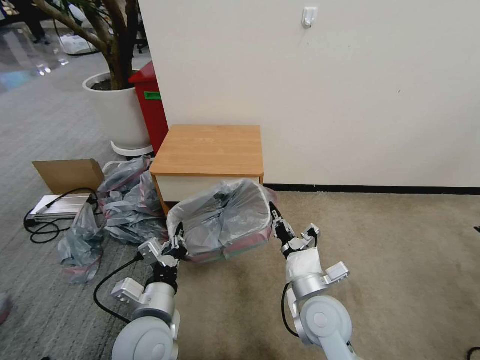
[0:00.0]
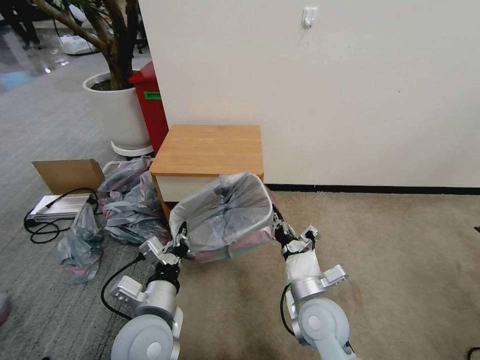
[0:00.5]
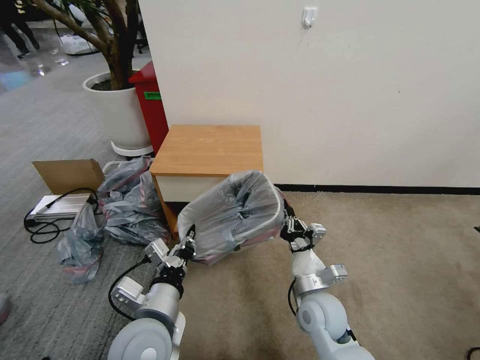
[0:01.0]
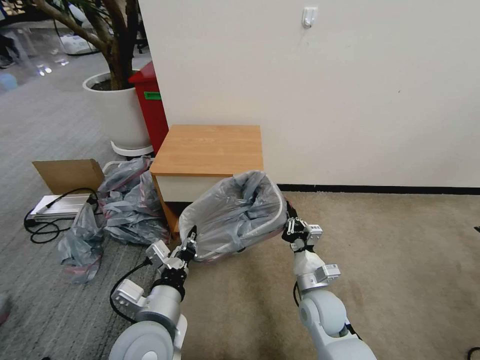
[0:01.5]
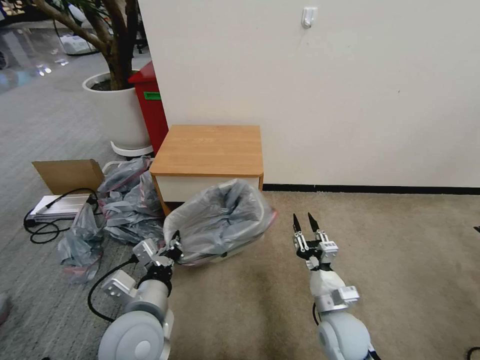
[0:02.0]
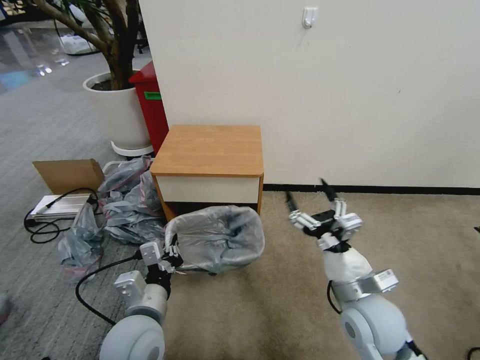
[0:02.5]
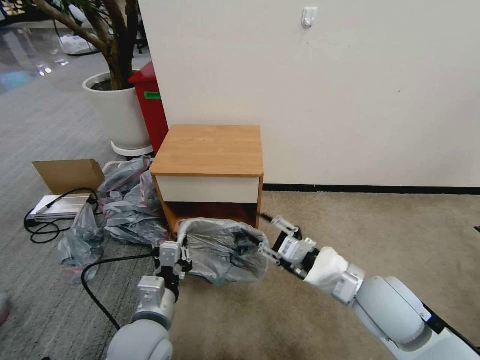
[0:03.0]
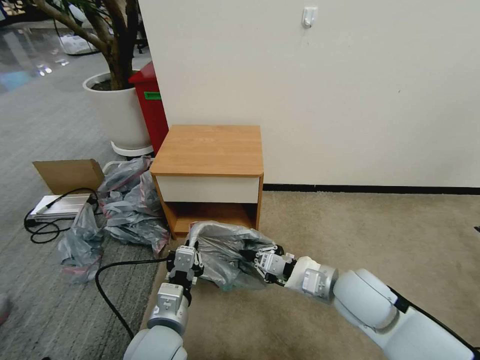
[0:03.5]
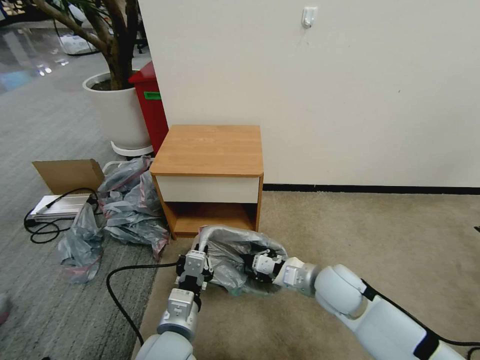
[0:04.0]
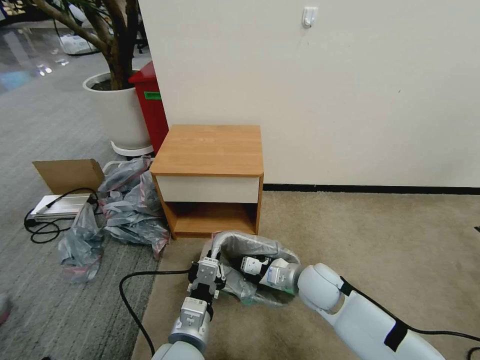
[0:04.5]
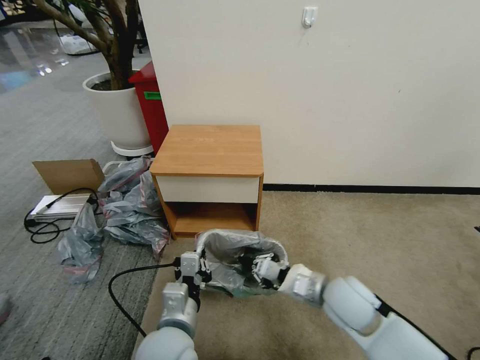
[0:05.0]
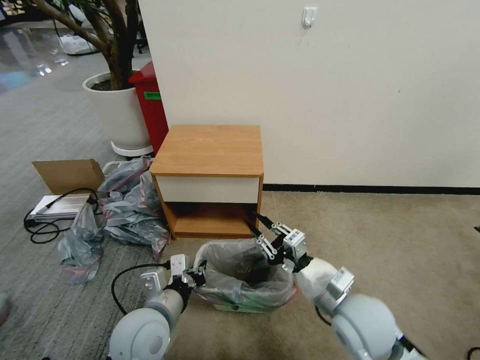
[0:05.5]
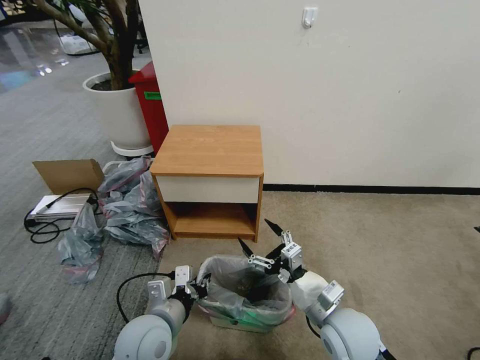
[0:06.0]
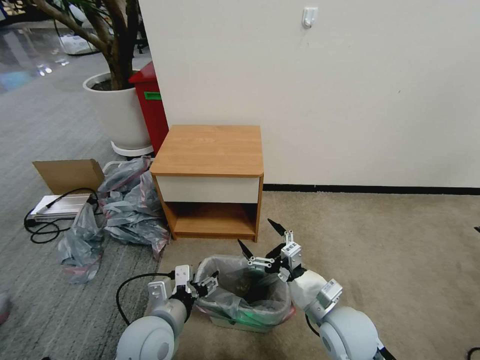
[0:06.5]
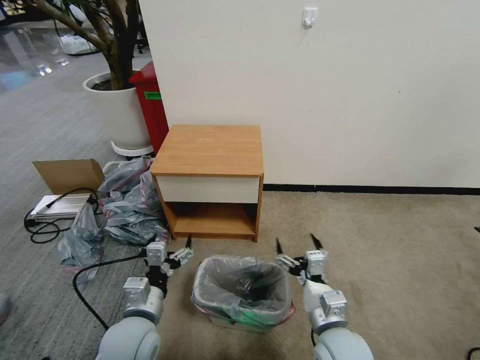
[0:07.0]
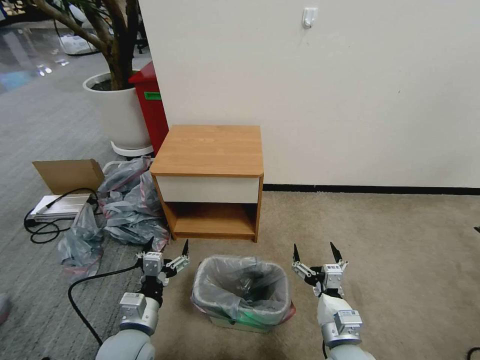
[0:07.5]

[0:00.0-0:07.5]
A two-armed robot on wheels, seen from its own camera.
Task of the whole recording: Pick up the garbage bag from the table and place it over the trash can.
0:00.0 to 0:02.0: The right gripper goes approximately 10 cm downward and to the right, and opens up.
0:02.0 to 0:04.0: The left gripper is displaced to the right by roughly 5 cm. The right gripper shifts some 10 cm forward and upward, and closes its fingers.
0:04.0 to 0:05.5: The right gripper moves backward, approximately 10 cm. Meanwhile the left gripper shifts about 5 cm to the left.
0:05.5 to 0:07.5: The right gripper is displaced downward and backward by some 10 cm, and opens up. The left gripper travels downward by approximately 5 cm, and opens.

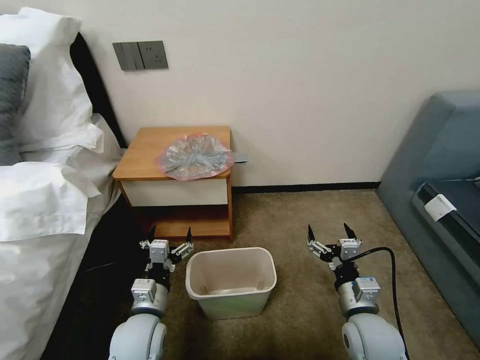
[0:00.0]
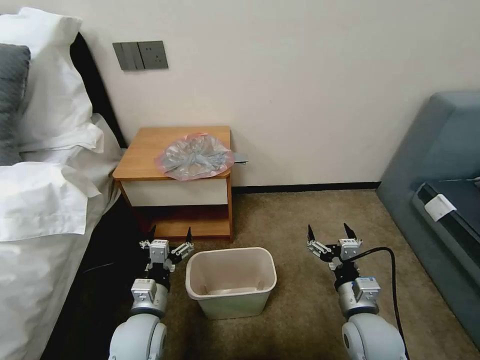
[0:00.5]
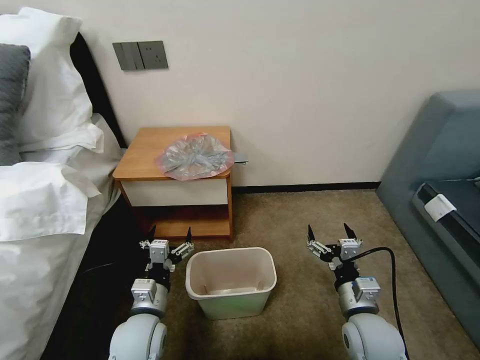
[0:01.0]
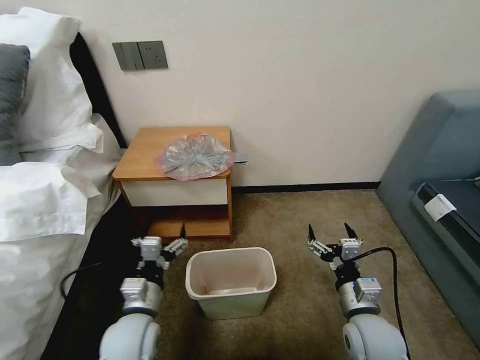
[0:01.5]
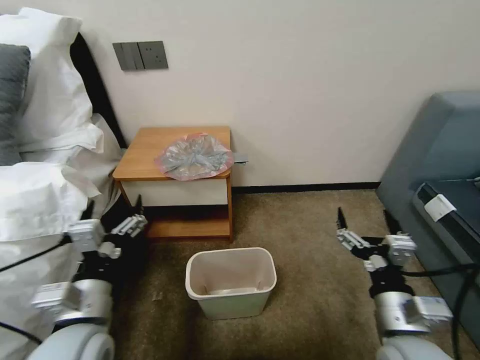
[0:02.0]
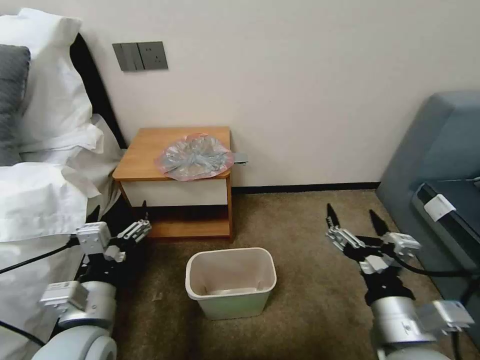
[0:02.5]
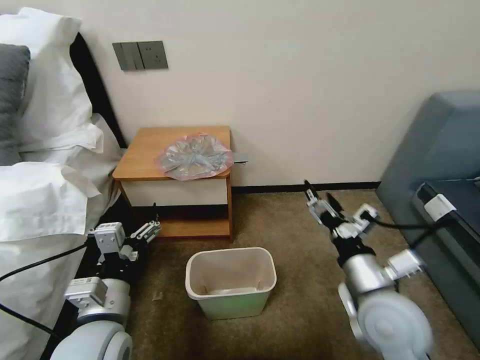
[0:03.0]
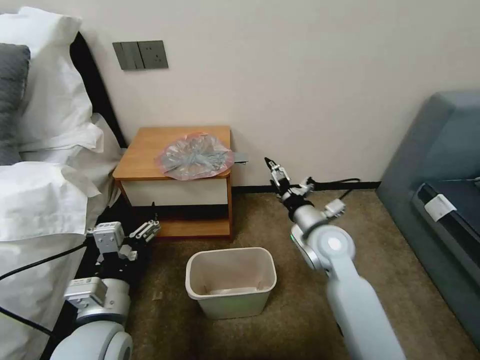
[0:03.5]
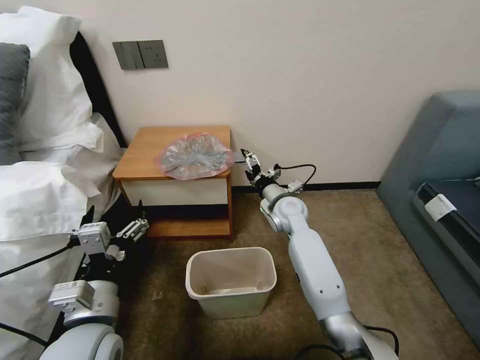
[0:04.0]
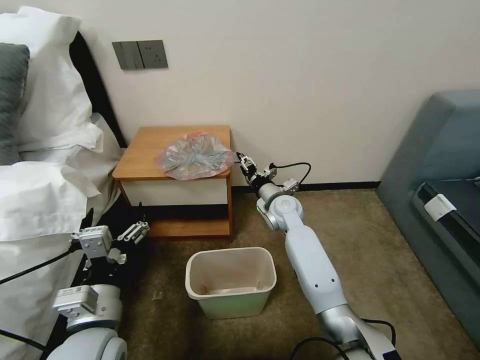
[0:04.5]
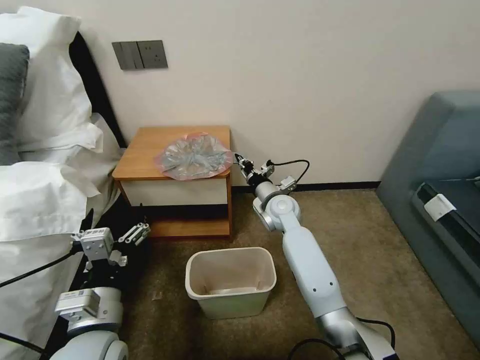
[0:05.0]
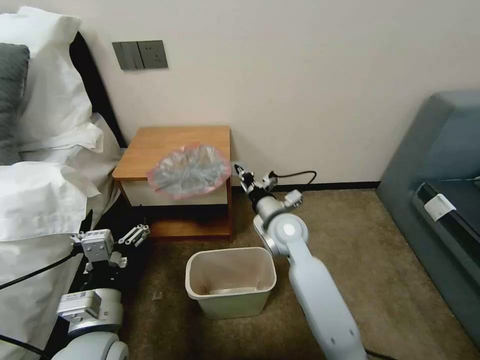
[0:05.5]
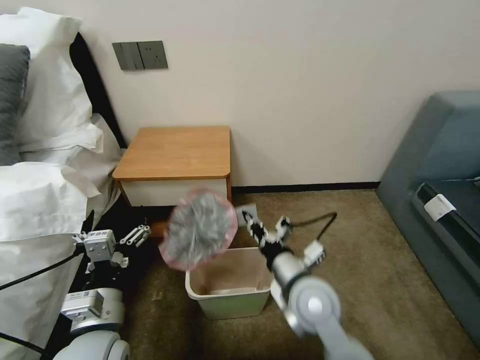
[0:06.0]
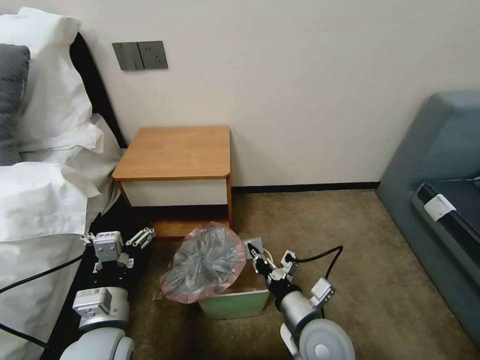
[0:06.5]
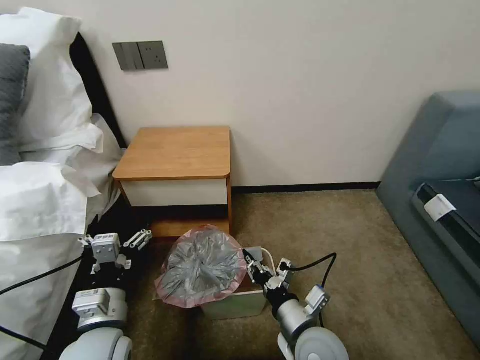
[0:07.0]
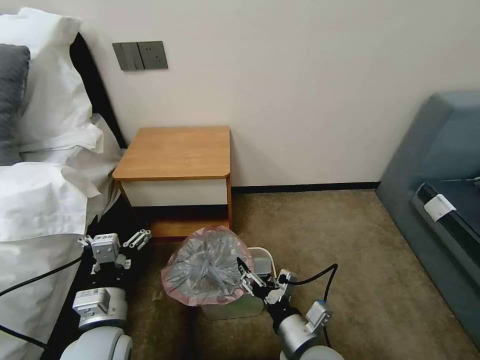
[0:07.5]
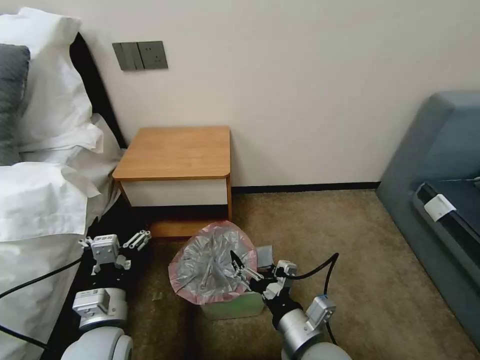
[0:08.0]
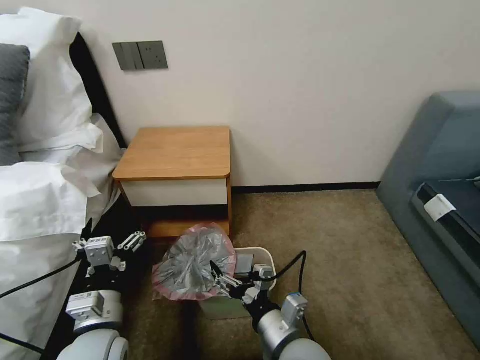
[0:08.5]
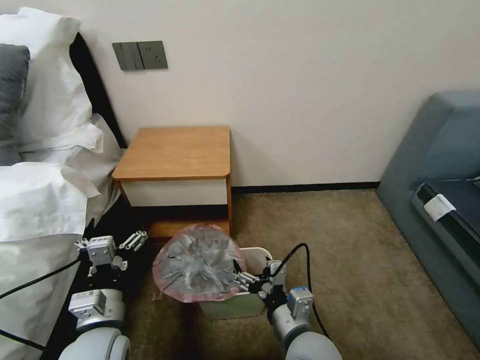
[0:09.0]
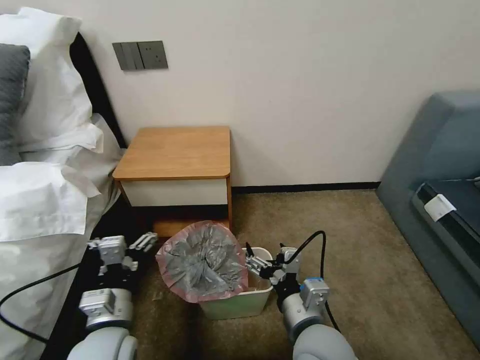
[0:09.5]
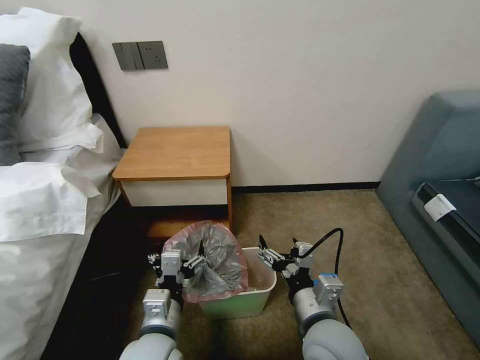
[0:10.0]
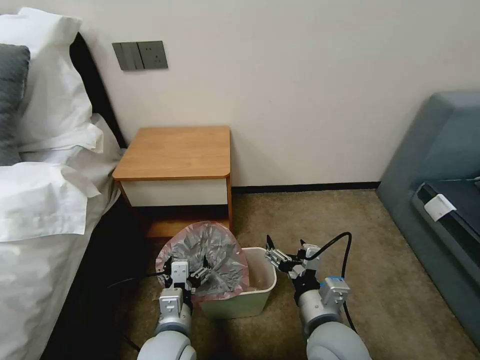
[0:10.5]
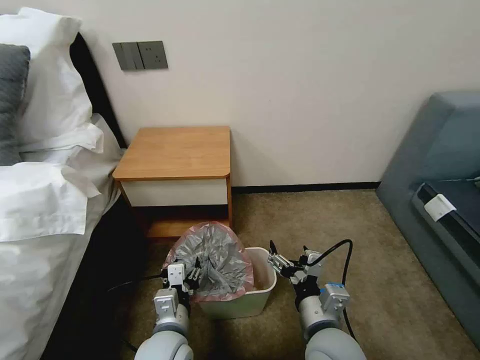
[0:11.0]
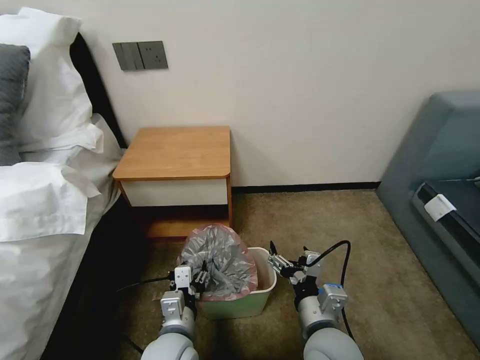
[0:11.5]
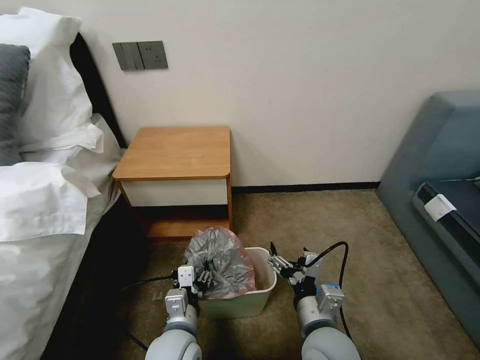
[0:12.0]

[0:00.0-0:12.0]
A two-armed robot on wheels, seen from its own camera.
Task of the whole recording: Pick up the garbage bag from the table and place it over the trash can.
0:02.0 to 0:04.0: The right gripper goes roughly 35 cm forward.
0:04.0 to 0:06.0: The right gripper is displaced backward by some 25 cm, and closes its fingers.
0:06.0 to 0:08.0: The right gripper goes some 10 cm backward, and opens up.
0:08.0 to 0:10.0: The left gripper goes approximately 10 cm to the right.
0:10.0 to 0:12.0: The left gripper is displaced downward by about 5 cm, and closes.

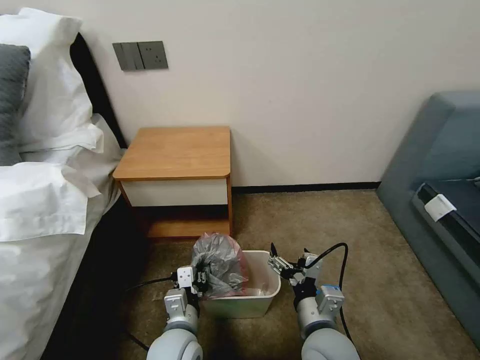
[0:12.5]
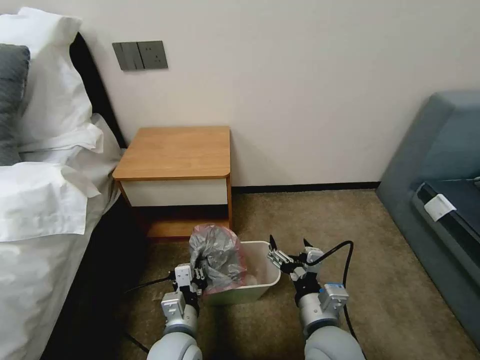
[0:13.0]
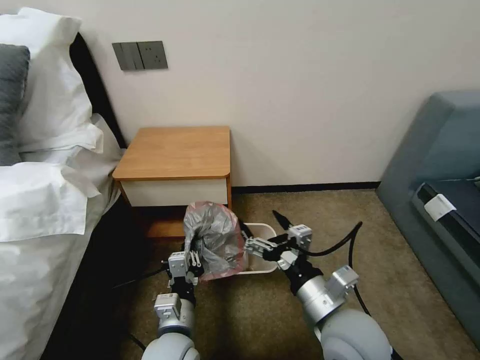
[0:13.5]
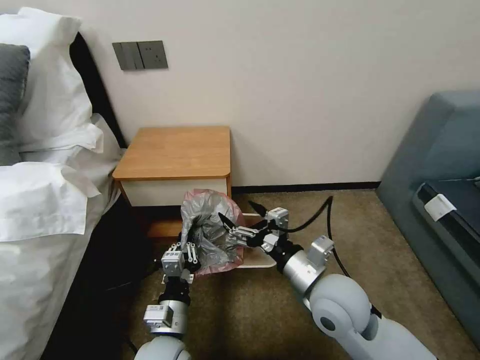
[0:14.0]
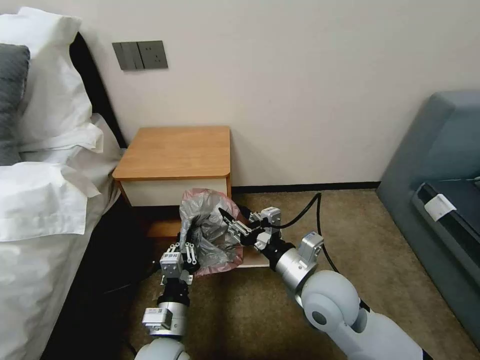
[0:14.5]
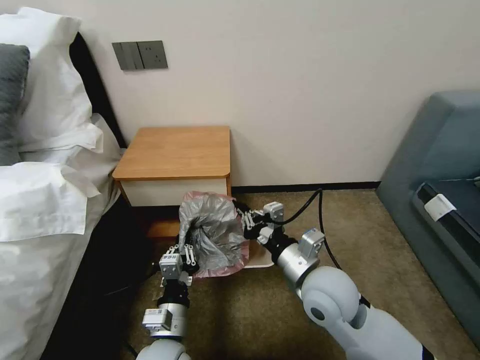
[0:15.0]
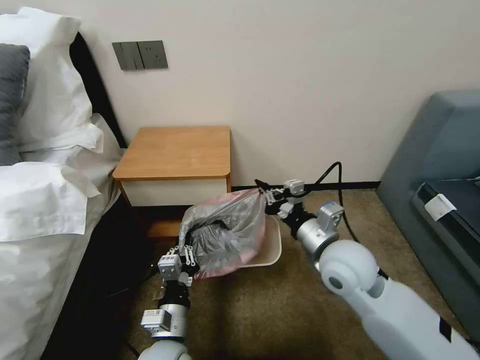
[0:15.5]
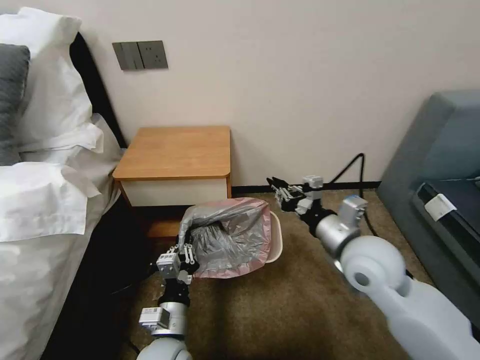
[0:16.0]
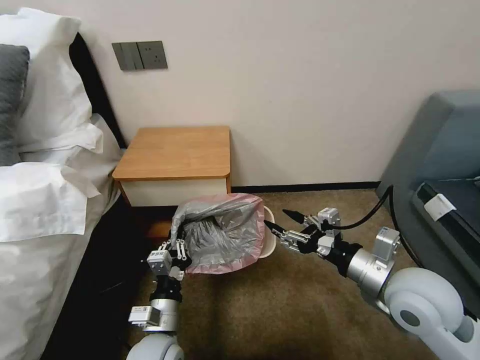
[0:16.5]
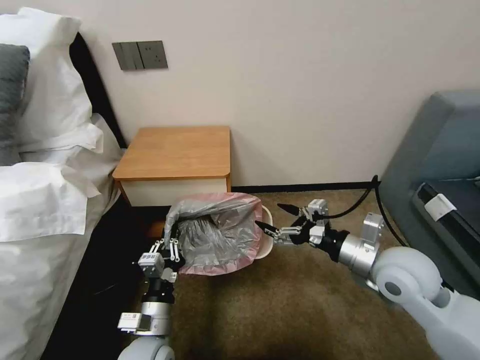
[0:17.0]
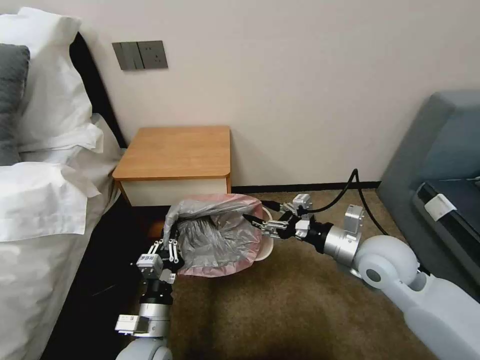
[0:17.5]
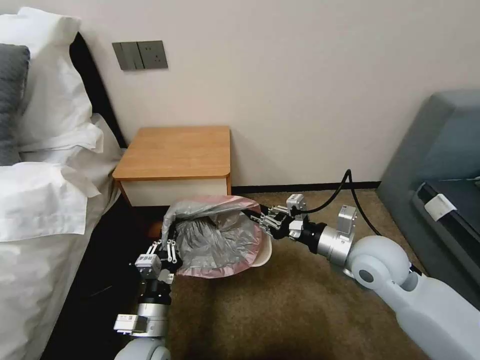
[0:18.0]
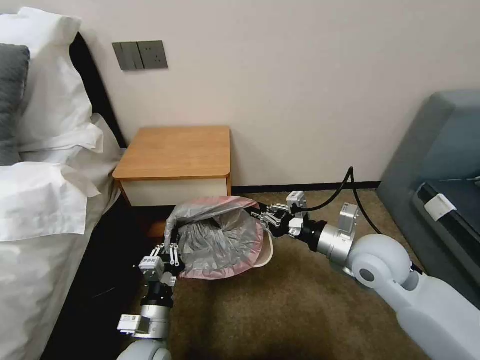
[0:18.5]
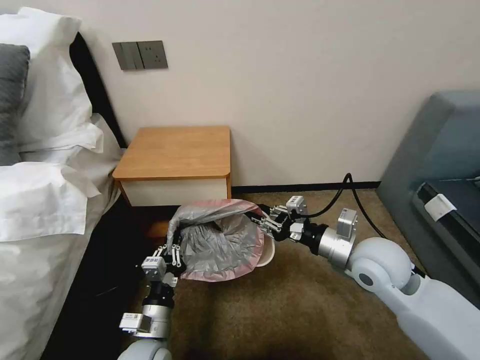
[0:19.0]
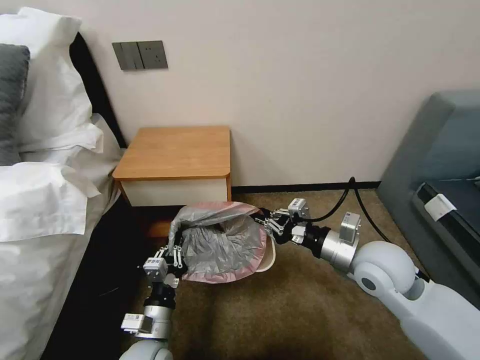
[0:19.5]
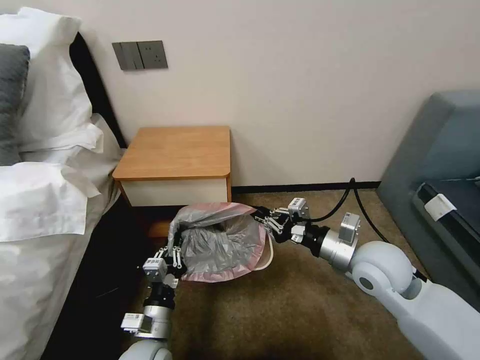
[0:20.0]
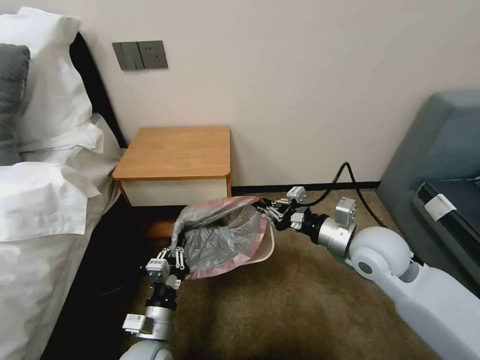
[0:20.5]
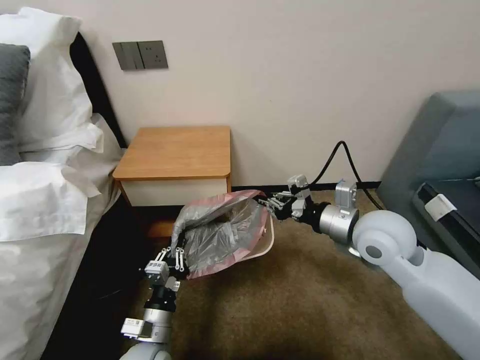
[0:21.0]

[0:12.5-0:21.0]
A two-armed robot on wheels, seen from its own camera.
Task of the whole recording: Pick up the garbage bag from the table and place it over the trash can.
0:12.5 to 0:14.5: The right gripper shifts about 10 cm forward and upward, and closes.
0:14.5 to 0:16.5: The right gripper moves to the right, about 15 cm, and closes, then opens again.
0:16.5 to 0:19.0: The right gripper is displaced forward by approximately 5 cm, and closes its fingers.
0:19.0 to 0:21.0: The right gripper shifts approximately 5 cm upward.
